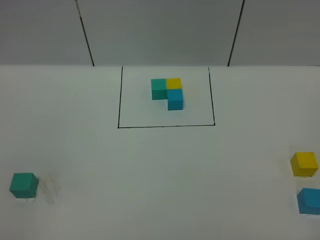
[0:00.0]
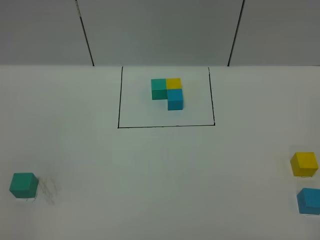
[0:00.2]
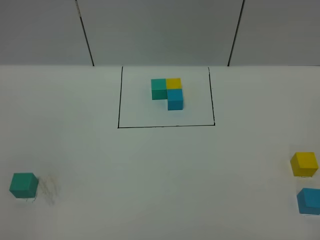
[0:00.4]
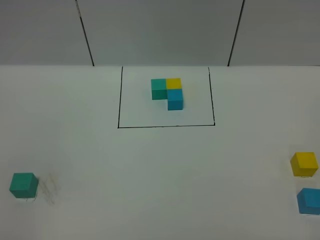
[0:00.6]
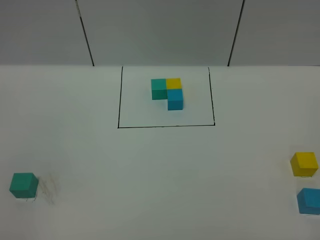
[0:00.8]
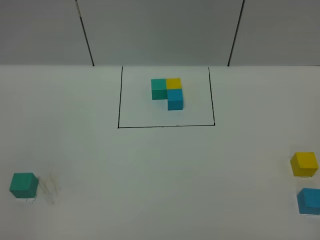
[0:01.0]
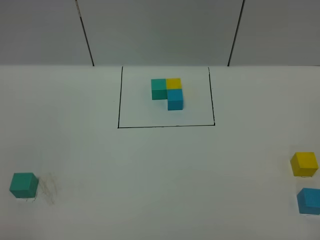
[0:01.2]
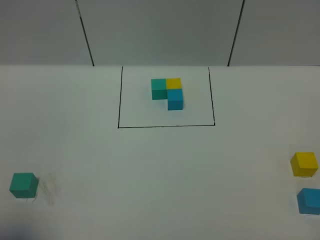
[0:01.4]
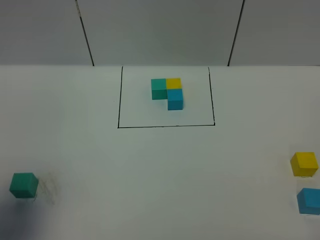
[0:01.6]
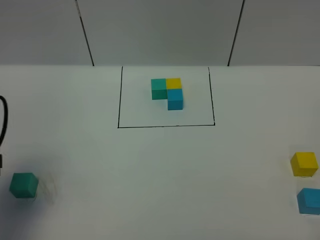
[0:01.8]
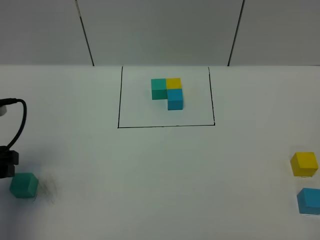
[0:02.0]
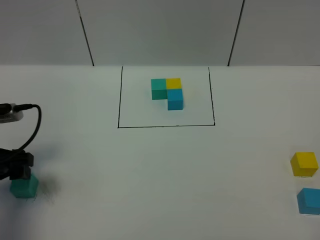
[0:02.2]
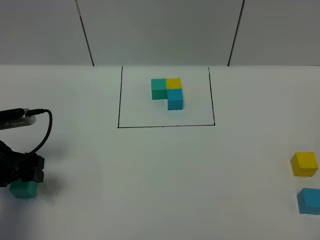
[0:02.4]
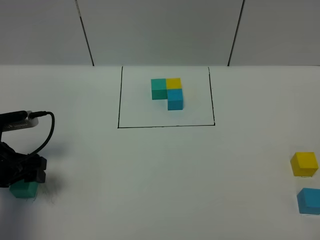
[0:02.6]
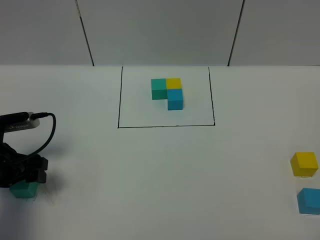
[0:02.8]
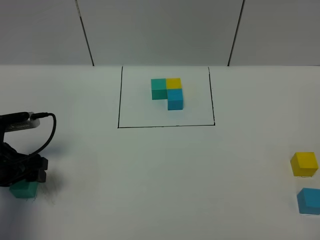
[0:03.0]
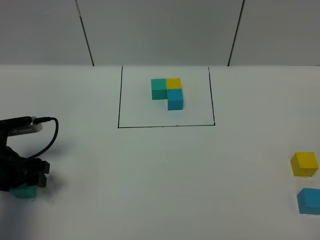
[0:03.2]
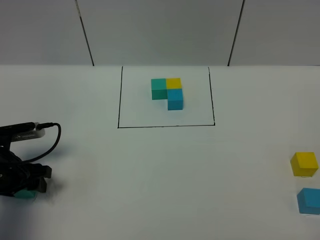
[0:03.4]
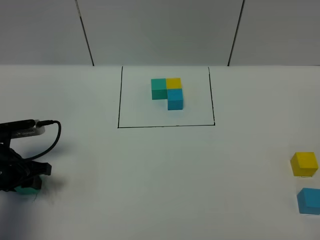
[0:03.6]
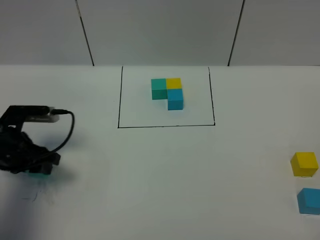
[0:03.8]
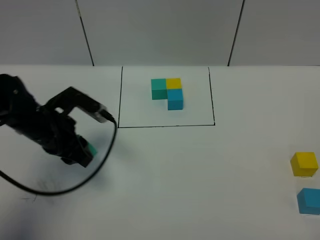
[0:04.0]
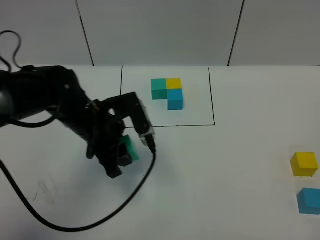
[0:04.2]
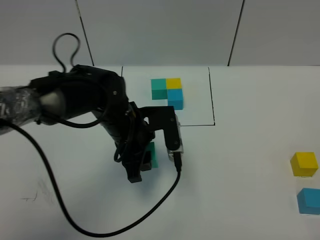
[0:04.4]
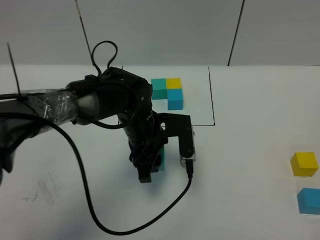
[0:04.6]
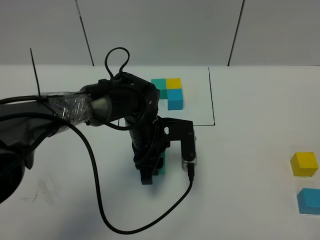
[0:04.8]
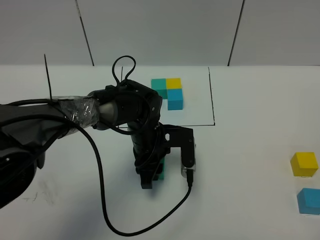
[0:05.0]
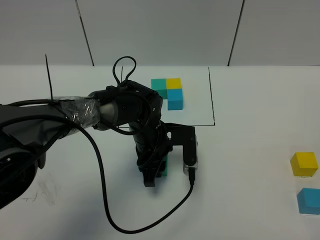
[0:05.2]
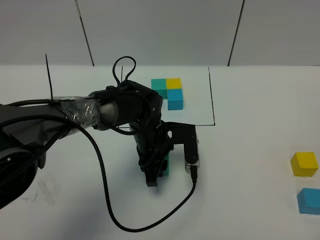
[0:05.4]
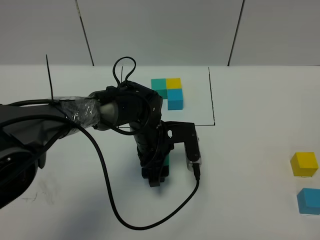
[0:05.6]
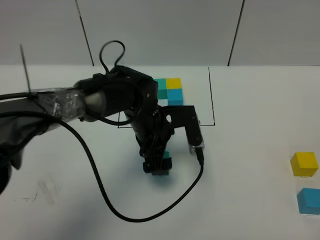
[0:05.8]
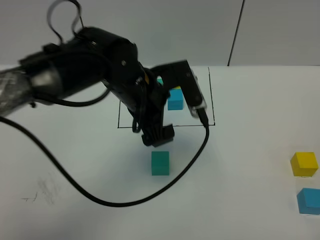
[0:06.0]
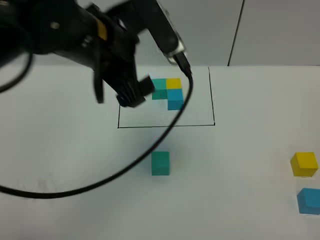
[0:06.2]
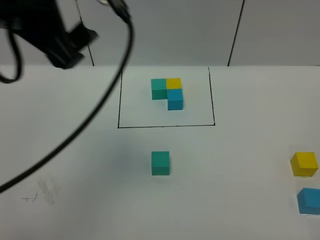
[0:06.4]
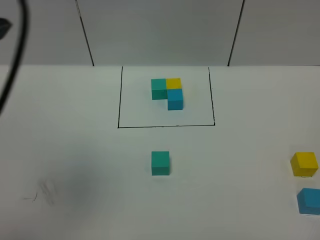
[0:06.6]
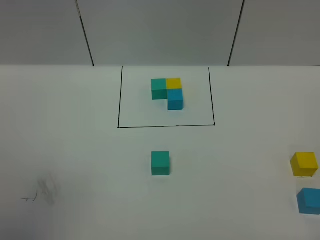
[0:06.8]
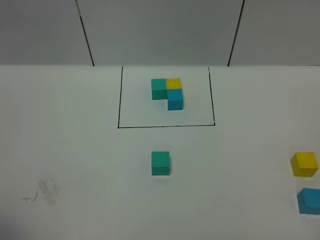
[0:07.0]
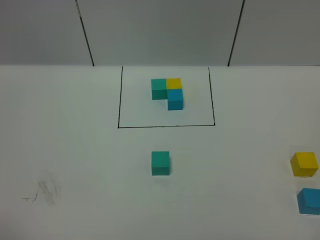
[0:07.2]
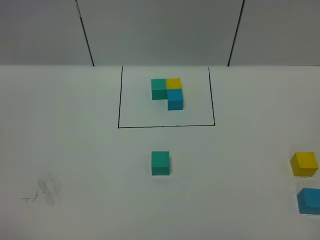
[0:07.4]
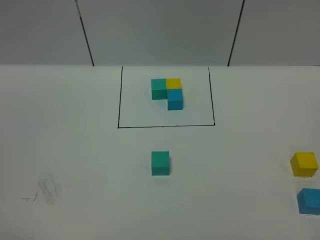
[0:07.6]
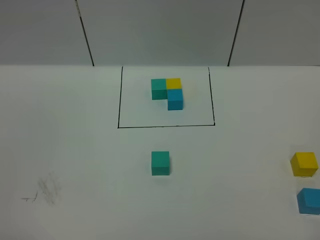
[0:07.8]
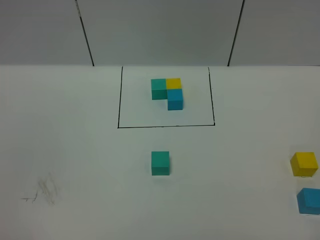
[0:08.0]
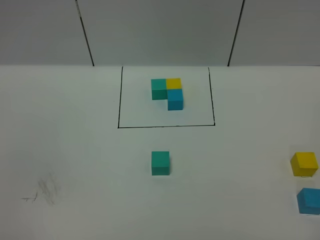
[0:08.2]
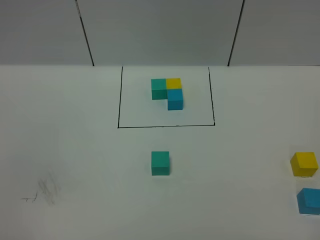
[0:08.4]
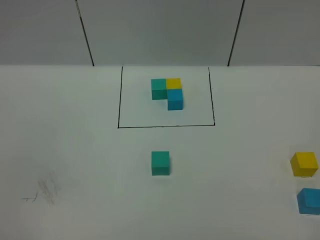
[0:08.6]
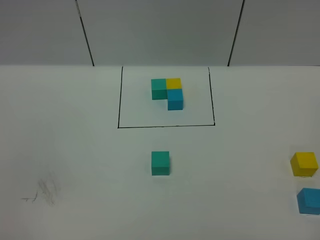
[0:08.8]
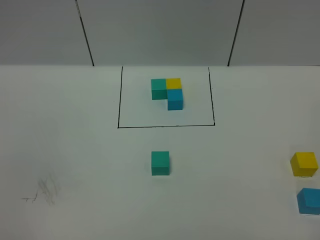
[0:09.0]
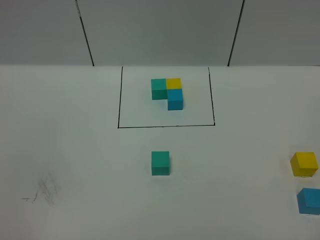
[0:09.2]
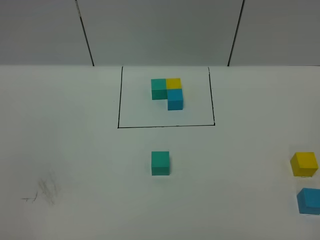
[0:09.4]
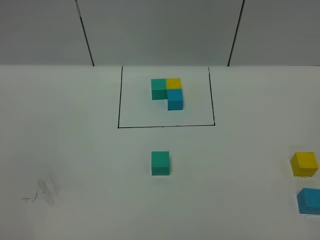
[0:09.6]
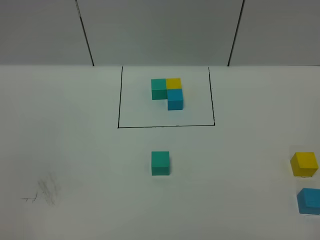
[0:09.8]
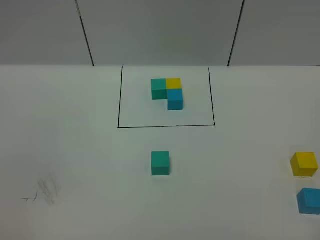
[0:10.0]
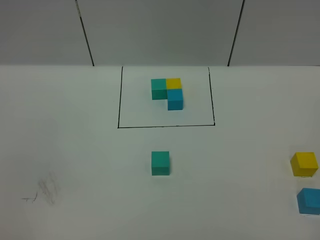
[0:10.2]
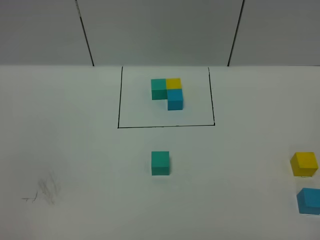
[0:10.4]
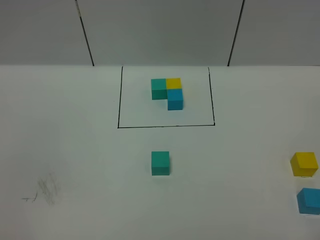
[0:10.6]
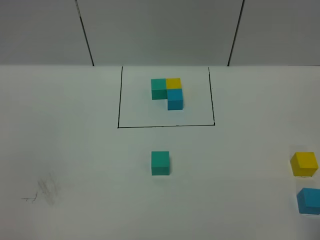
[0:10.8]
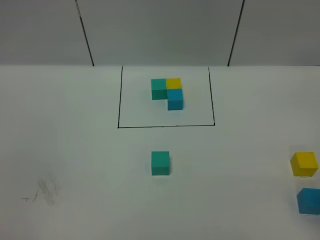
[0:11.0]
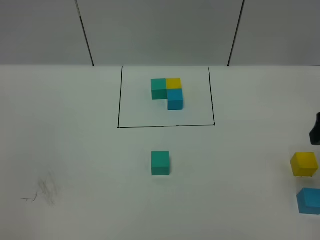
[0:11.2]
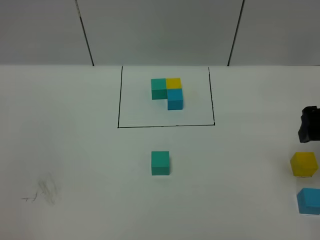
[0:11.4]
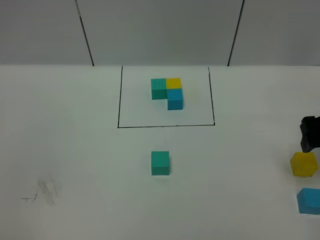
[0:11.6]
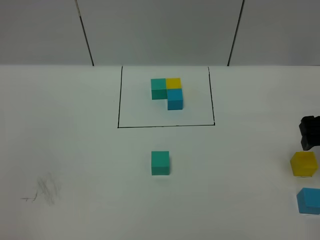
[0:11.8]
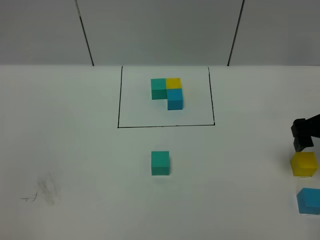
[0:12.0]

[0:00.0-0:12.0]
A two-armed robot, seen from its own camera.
Task of the whole recording: According to the building block template in front, assemble the scattered blocks together.
Step, 0:01.8 to 0:05.8: Put the green cube in the center of the table.
0:00.0 to 0:01.6: The left gripper moves forward, approximately 15 cm.
0:01.6 to 0:03.0: The left gripper is displaced downward and forward by roughly 20 cm.
0:03.0 to 0:04.4: The left gripper shifts roughly 25 cm to the right, and closes up.
0:04.4 to 0:06.0: The left gripper is displaced upward by roughly 10 cm, and opens up.
0:06.0 to 0:07.6: The left gripper is displaced backward, to the left and upward by roughly 50 cm.
0:10.4 to 0:12.0: The right gripper is displaced forward by roughly 30 cm, and opens its fingers.

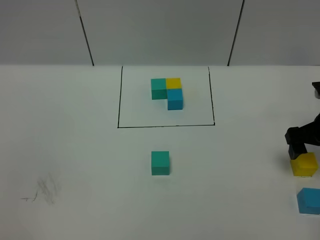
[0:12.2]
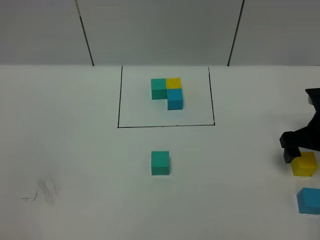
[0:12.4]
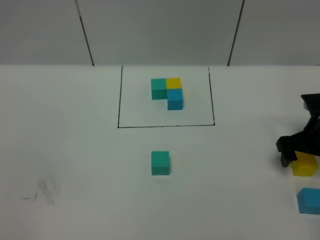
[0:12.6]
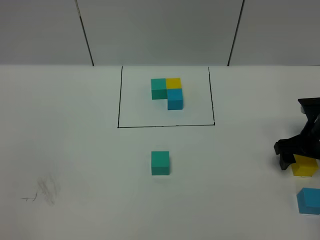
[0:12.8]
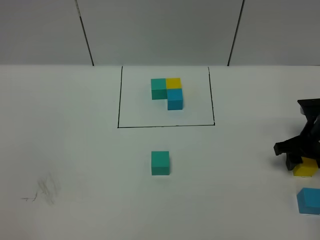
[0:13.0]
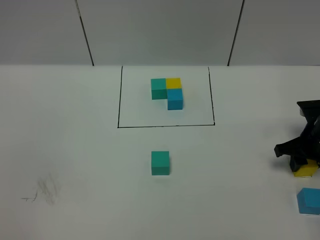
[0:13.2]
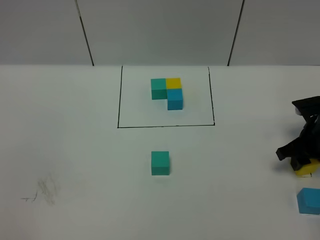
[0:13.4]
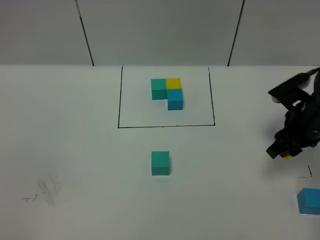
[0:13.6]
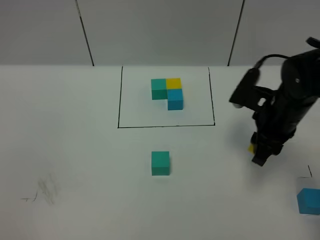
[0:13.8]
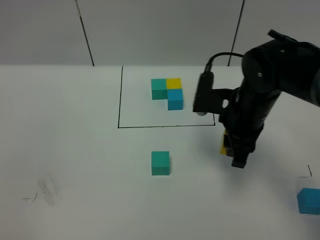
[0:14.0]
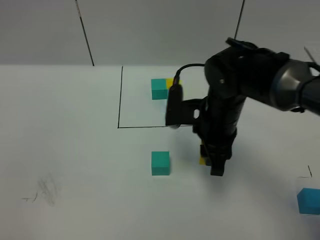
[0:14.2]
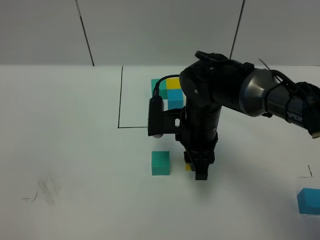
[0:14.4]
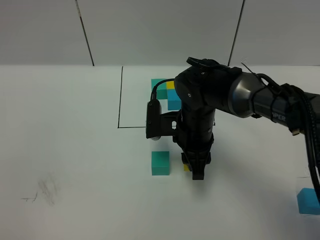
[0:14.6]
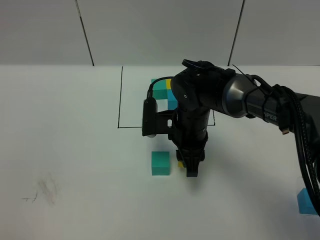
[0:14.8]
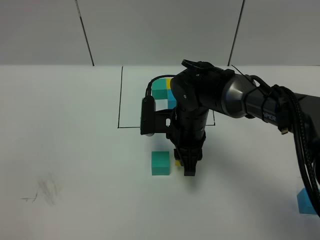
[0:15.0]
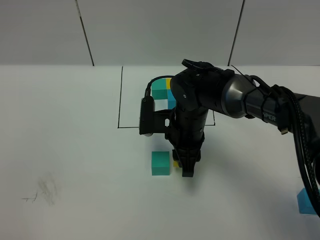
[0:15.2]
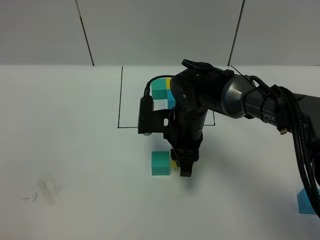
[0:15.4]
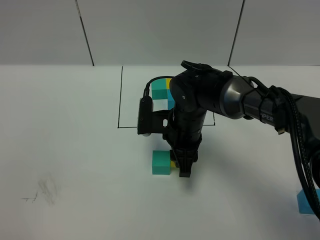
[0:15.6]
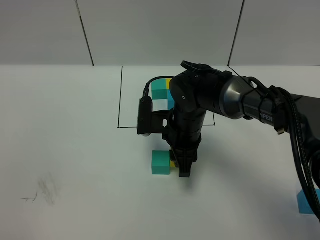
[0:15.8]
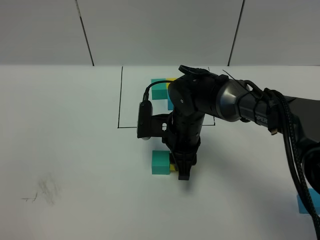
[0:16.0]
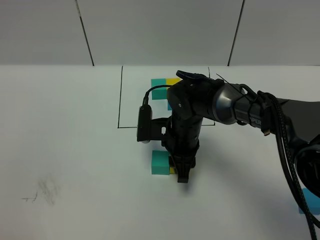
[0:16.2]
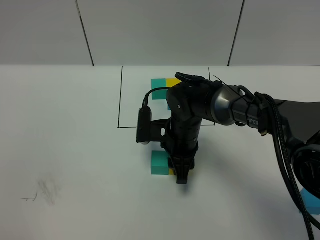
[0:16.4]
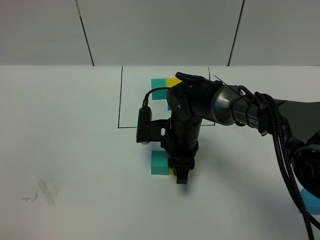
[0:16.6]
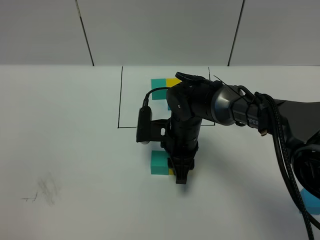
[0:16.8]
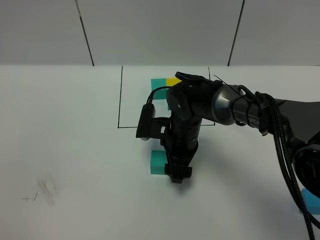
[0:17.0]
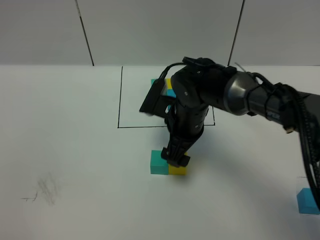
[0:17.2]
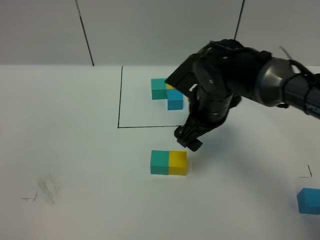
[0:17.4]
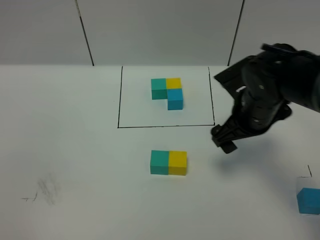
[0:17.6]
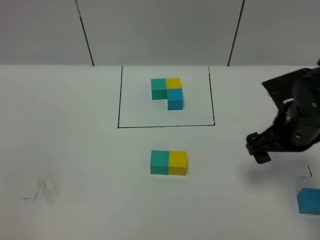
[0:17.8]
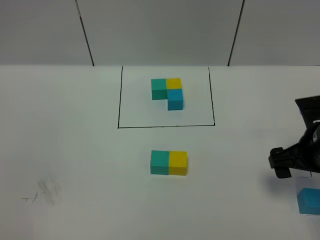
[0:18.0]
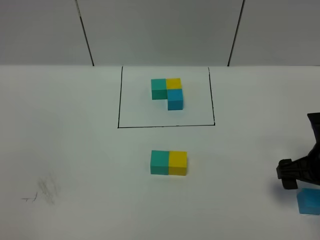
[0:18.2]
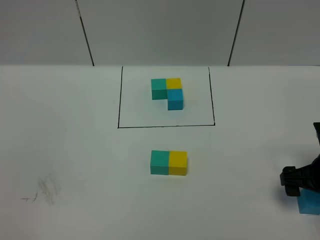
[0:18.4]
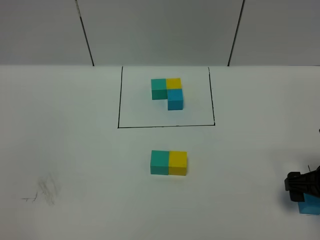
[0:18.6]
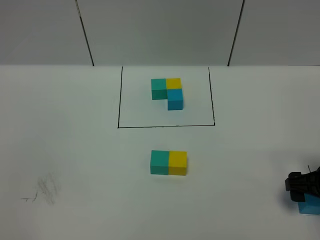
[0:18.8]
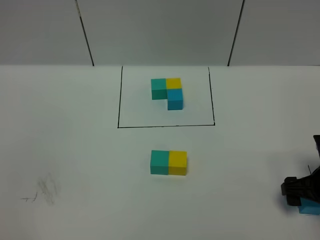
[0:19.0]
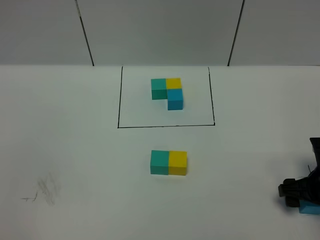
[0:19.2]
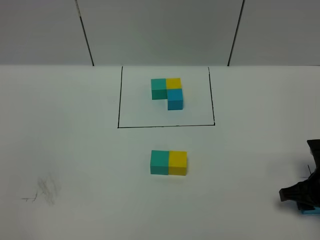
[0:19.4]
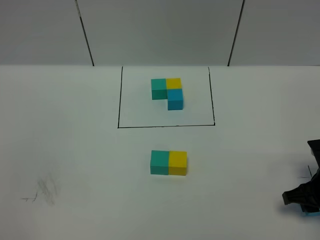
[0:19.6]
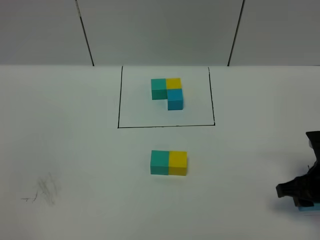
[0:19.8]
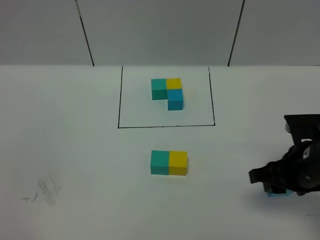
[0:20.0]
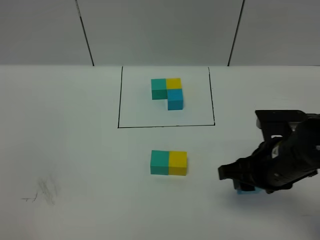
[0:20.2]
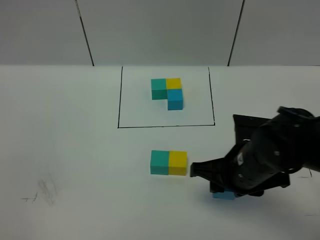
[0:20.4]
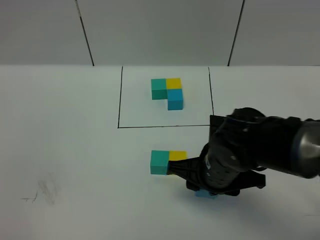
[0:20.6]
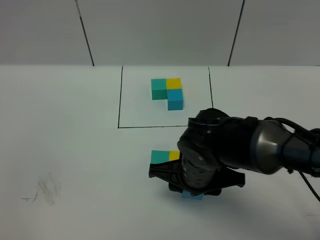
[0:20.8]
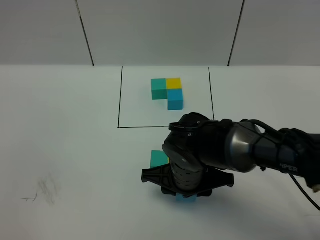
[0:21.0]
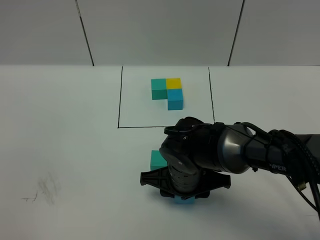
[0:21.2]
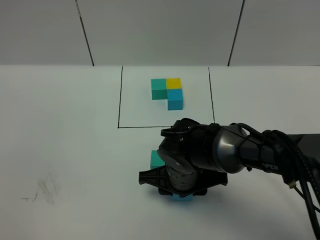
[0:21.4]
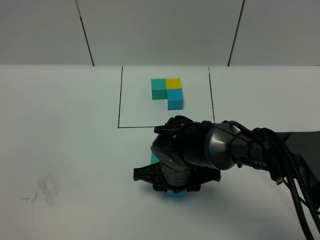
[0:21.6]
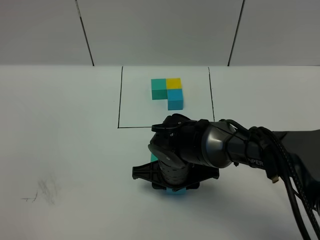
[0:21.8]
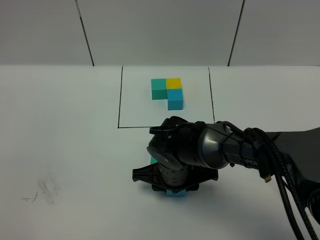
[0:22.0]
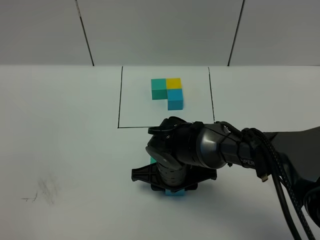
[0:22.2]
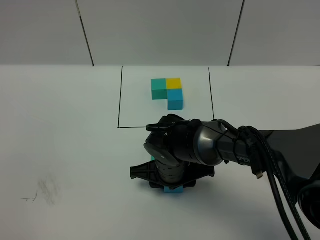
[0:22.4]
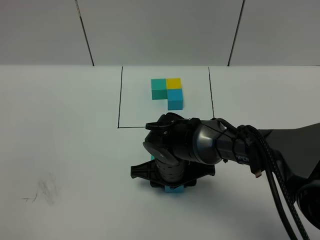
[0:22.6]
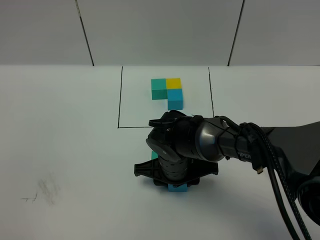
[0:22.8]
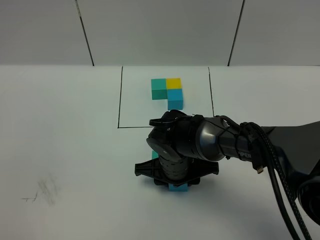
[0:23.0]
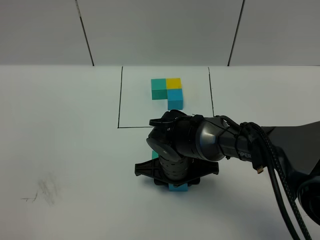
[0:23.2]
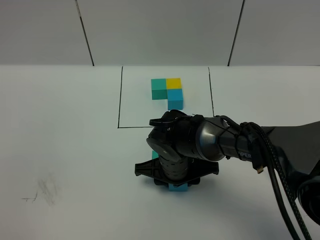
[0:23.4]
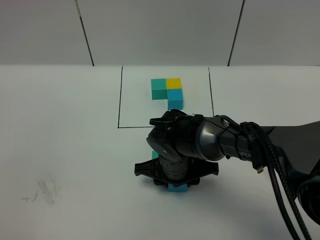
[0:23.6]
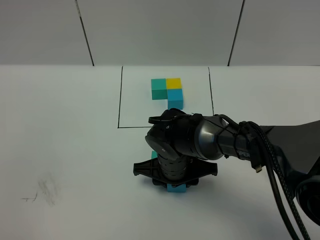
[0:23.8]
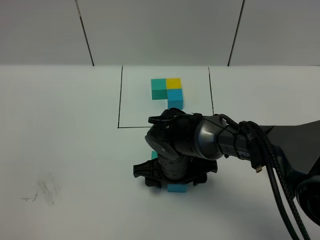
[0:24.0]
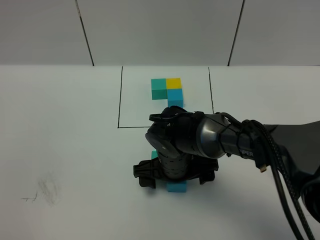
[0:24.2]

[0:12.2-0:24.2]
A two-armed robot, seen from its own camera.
Task of the whole recording: According to the building block template in front, assemble the scattered blocks together.
Step, 0:12.2 to 0:17.2: Put the yellow cube on the right of the green cube.
Step, 0:17.4 to 0:24.0: Put the blue cube in the front of the yellow cube.
0:12.2 to 0:13.8: The right gripper is displaced to the left by some 10 cm, and closes up.
0:13.8 to 0:15.2: The right gripper goes approximately 15 cm to the left.
0:15.2 to 0:16.6: There are only small adjustments of the grippers.
0:16.6 to 0:18.2: The right gripper is displaced to the right by roughly 25 cm, and opens its fingers.
0:18.2 to 0:19.8: The right gripper closes.
0:19.8 to 0:21.2: The right gripper shifts roughly 25 cm to the left.
0:21.2 to 0:22.6: The grippers make only small movements.
0:22.6 to 0:24.2: The right gripper opens its fingers.
